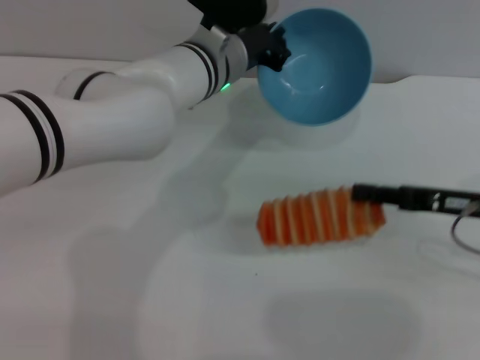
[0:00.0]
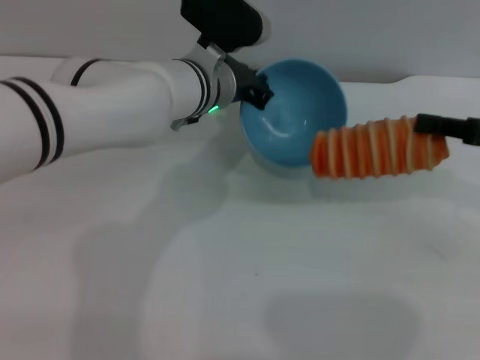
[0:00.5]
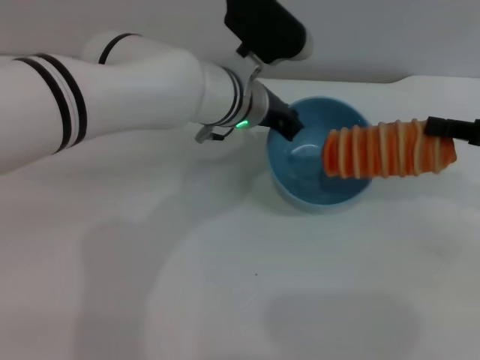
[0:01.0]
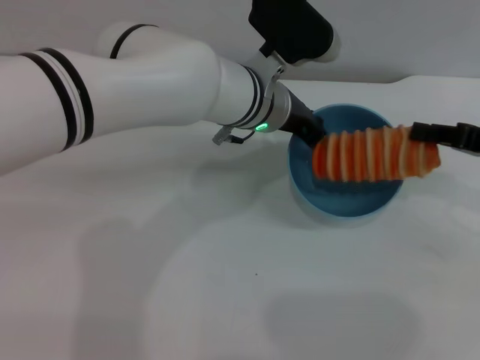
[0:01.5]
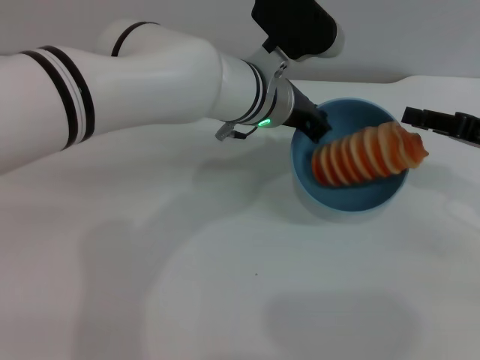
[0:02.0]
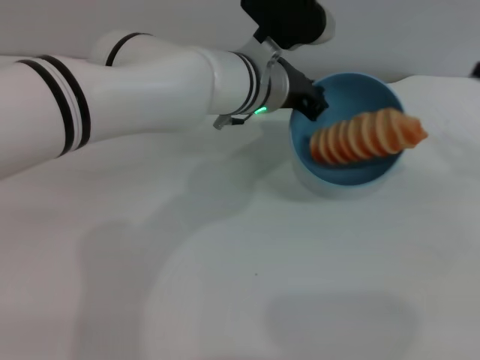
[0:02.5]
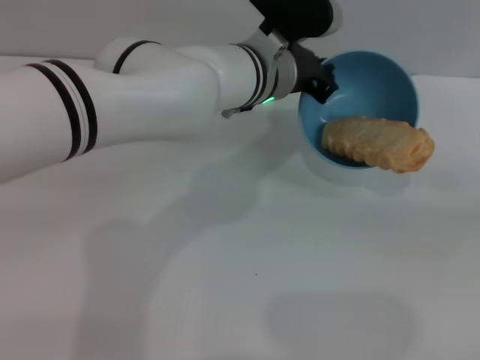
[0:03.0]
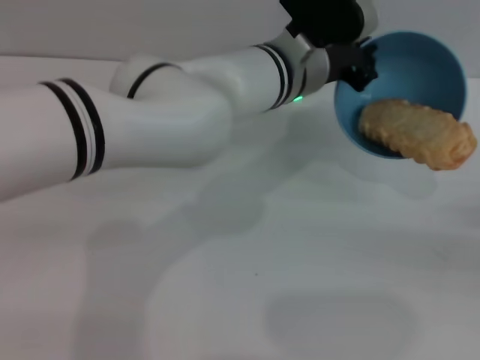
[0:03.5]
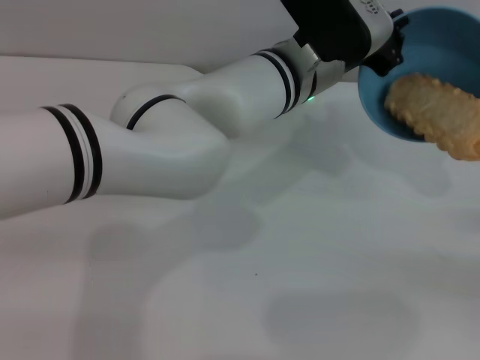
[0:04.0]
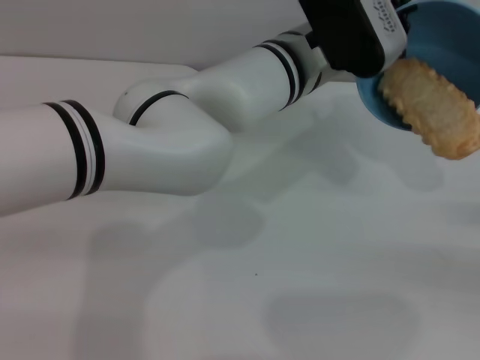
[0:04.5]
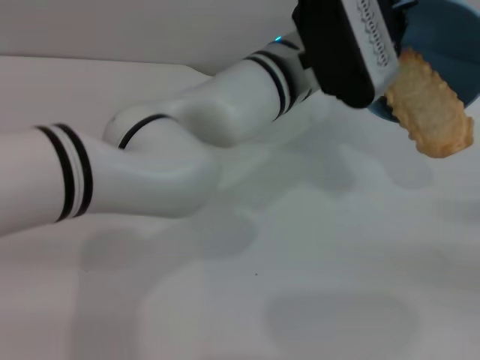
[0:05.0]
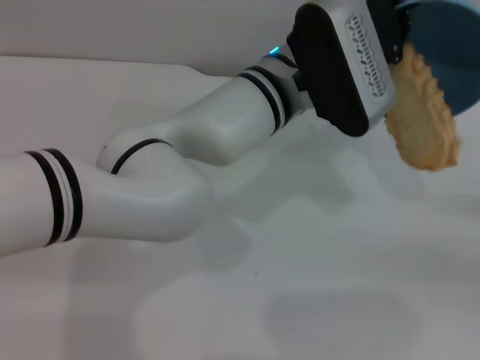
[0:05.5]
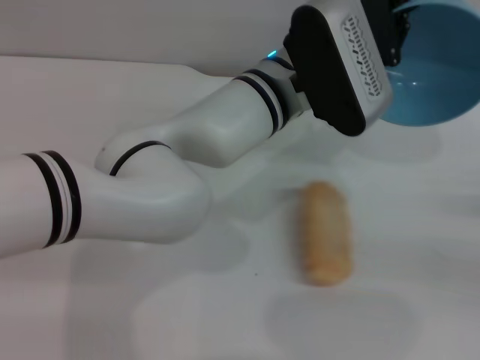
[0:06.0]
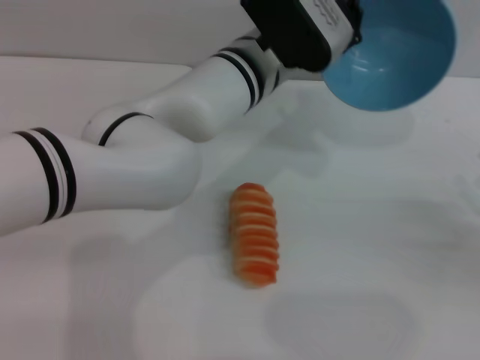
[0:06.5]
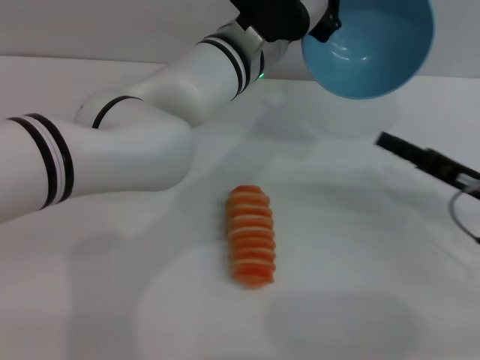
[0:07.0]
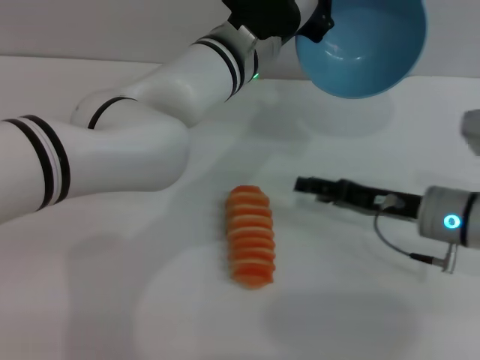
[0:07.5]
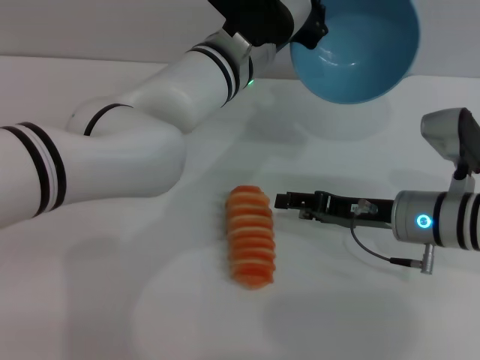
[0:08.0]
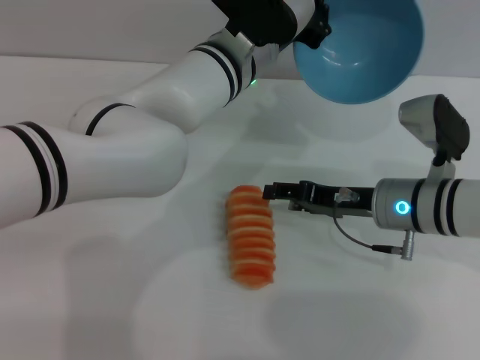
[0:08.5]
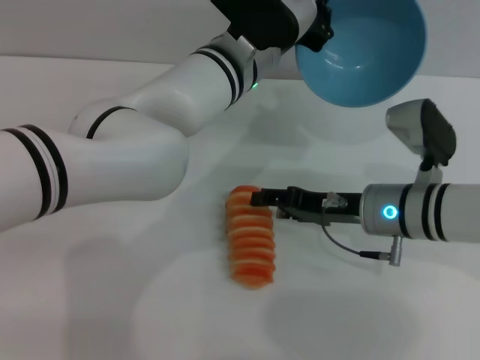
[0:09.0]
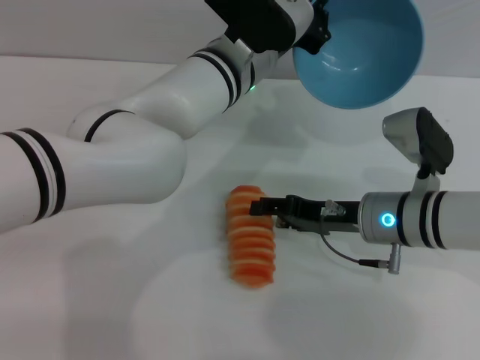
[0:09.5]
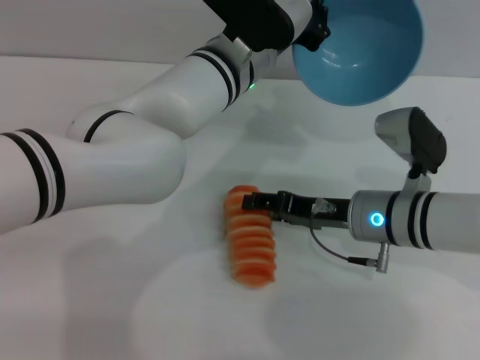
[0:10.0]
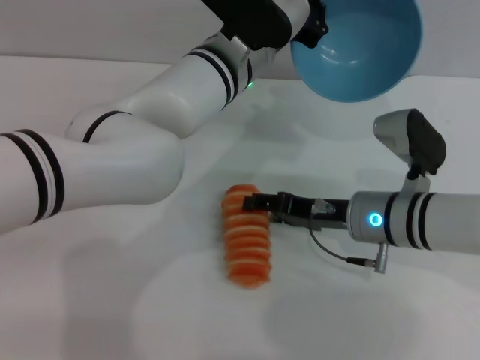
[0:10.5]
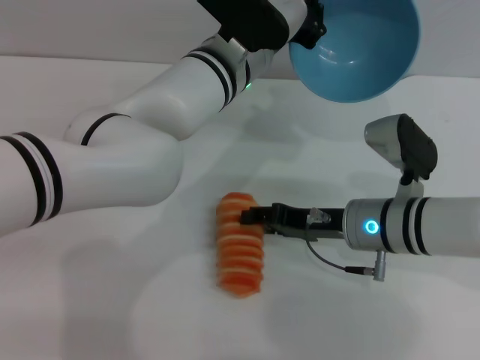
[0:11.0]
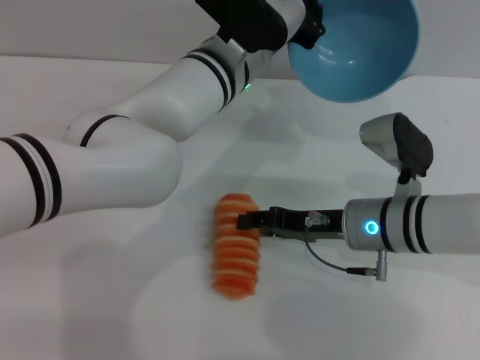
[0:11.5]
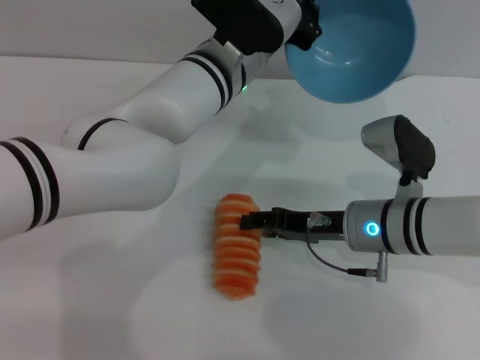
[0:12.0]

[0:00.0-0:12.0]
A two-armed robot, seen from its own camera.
Task of the whole recording: put the bread into the blue bowl and pour it out repeatedly.
Step, 0:00.5 to 0:02.0: Place the bread into the bowl.
Step, 0:02.5 to 0:06.0: Pour the bread out of the bowl.
0:00.0 to 0:02.0: The left gripper moves roughly 5 cm. Meanwhile the right gripper ends up about 5 cm from where it was.
0:02.0 to 0:04.0: The right gripper shifts roughly 15 cm to the right, backward and downward.
0:06.0 to 0:08.0: The left gripper moves roughly 5 cm. The right gripper is displaced to the left by roughly 20 cm, and opens.
0:08.0 to 0:12.0: The grippers stay close to where they were, moving slightly.

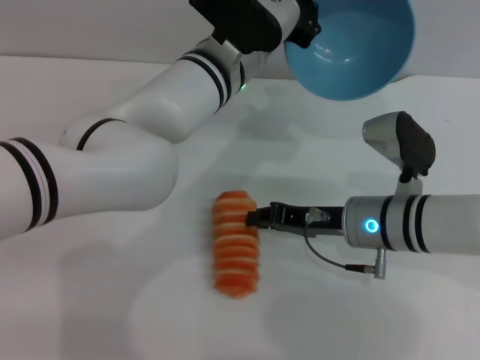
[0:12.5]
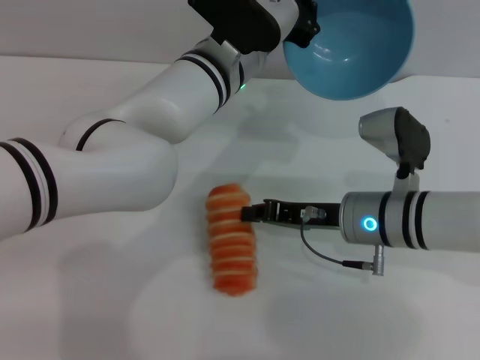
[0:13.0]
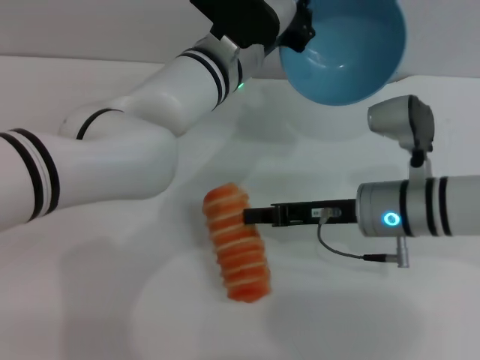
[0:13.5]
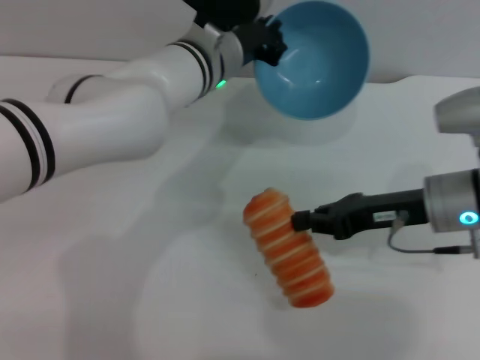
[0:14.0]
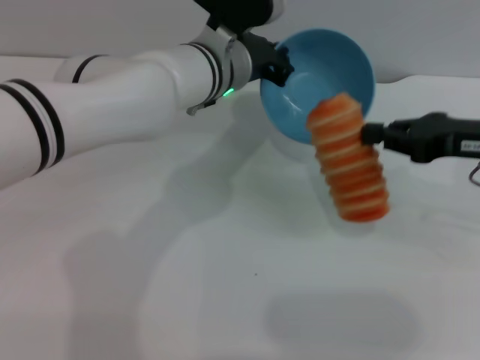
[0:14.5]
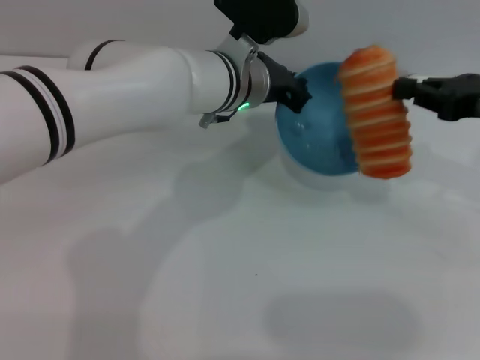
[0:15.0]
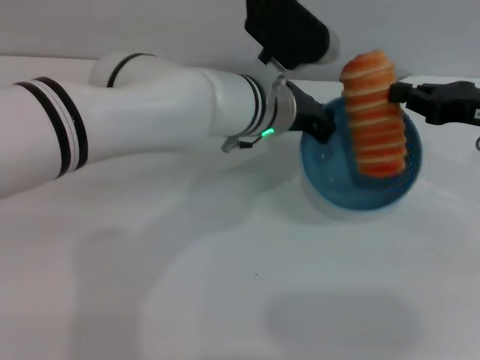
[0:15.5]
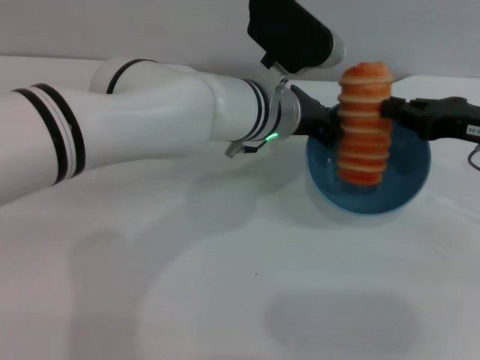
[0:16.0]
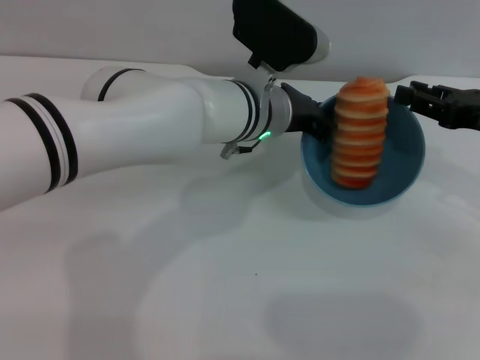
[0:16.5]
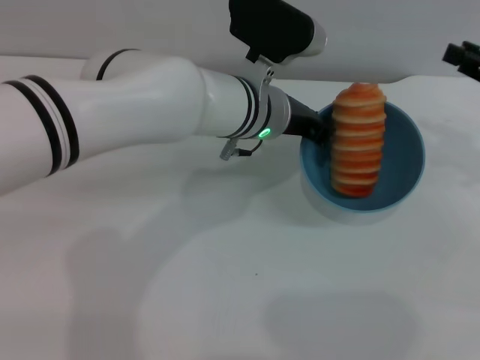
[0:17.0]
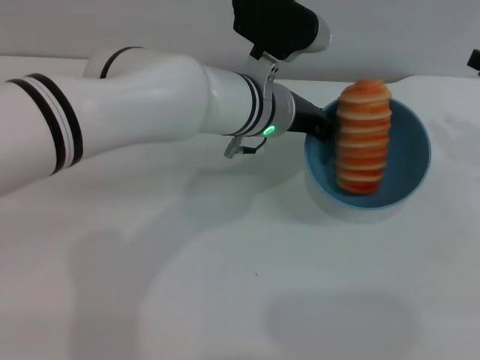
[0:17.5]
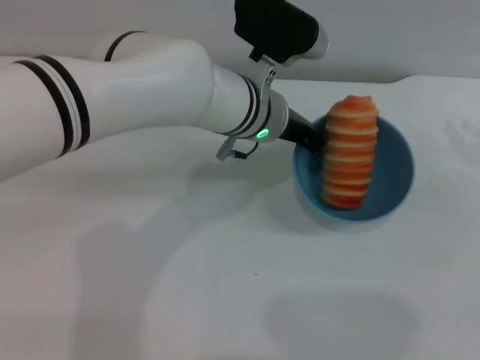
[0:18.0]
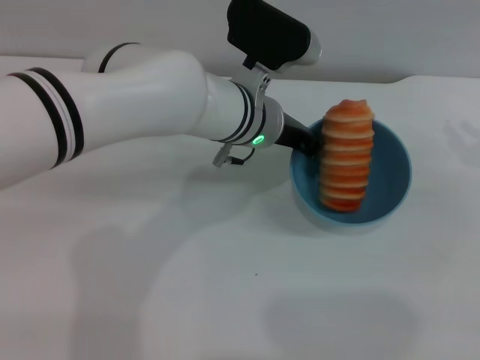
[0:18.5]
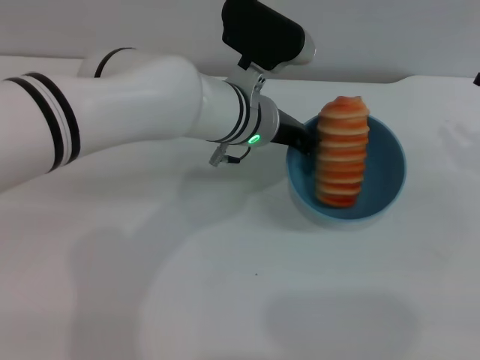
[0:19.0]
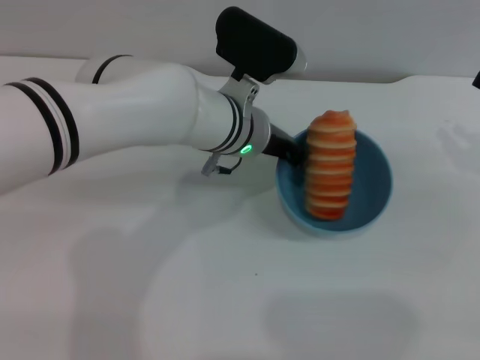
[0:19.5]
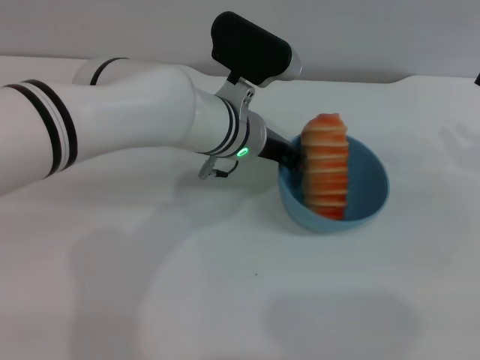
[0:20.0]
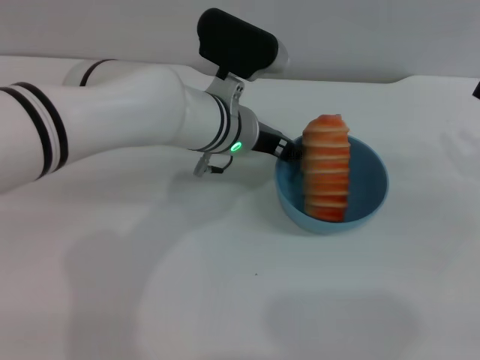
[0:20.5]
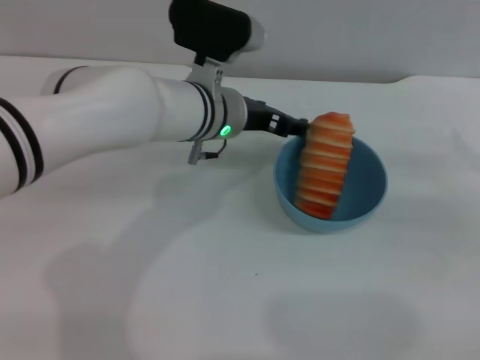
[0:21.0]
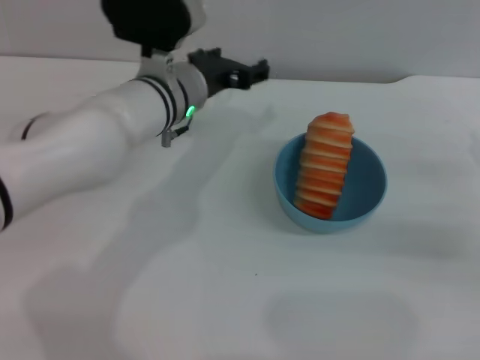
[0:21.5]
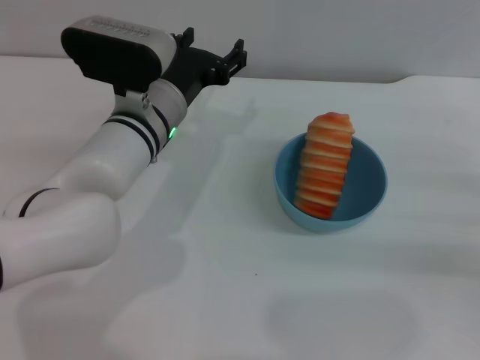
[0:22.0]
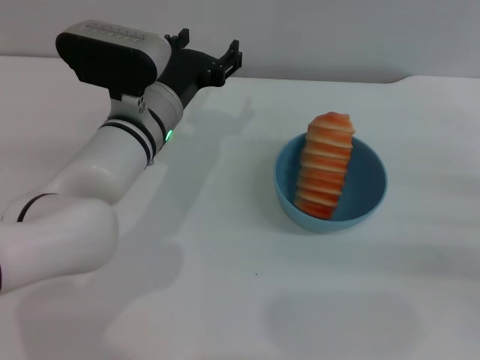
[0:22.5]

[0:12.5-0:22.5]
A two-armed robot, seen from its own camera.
Task of the whole recording: put the bread into the blue bowl and pour it out repeatedly.
Step, 0:14.5 to 0:16.5: Place the bread into the bowl.
Step, 0:17.0 to 0:21.0: Place the bowl on the table.
0:12.5 to 0:14.5: The right gripper shifts roughly 15 cm to the right and upward, and closes.
0:14.5 to 0:16.5: The right gripper opens up. Meanwhile the left gripper moves about 5 cm.
0:16.5 to 0:18.5: The right gripper goes about 5 cm to the right.
0:18.5 to 0:20.5: The grippers stay close to where they were, moving slightly.
0:20.5 to 0:22.5: The left gripper heads to the left, covering approximately 5 cm, and opens. Meanwhile the right gripper travels backward by approximately 5 cm, and opens up.

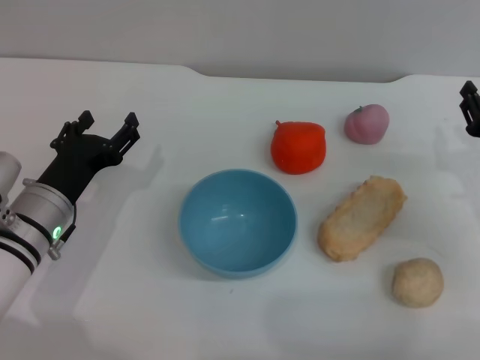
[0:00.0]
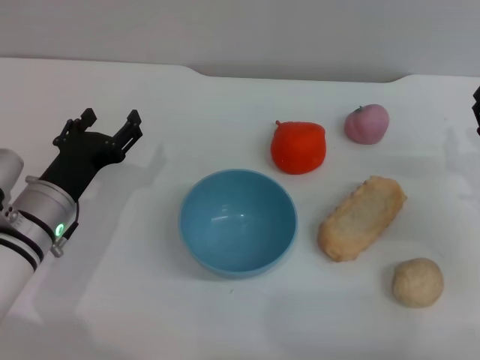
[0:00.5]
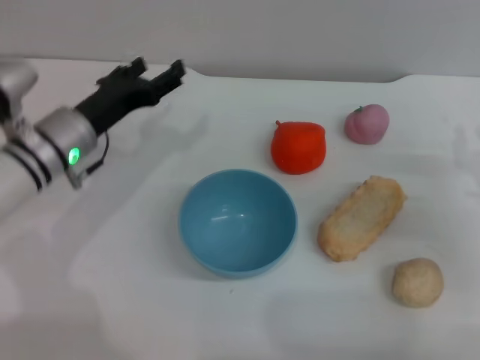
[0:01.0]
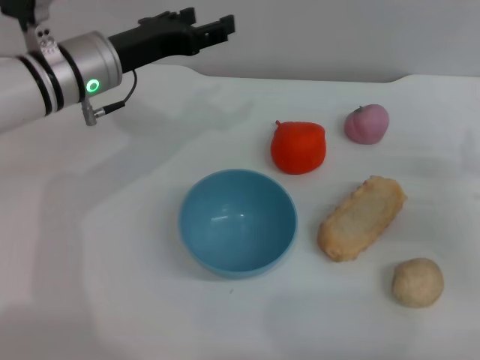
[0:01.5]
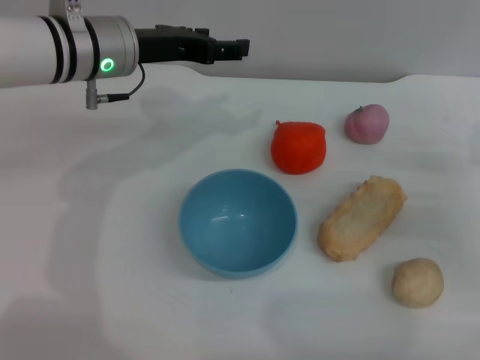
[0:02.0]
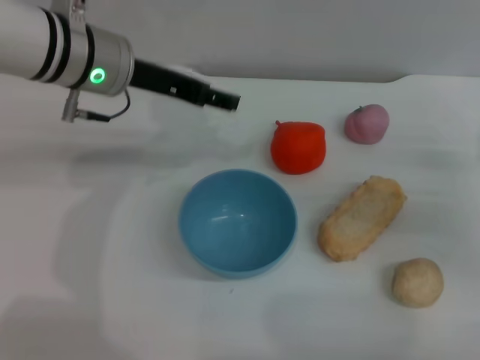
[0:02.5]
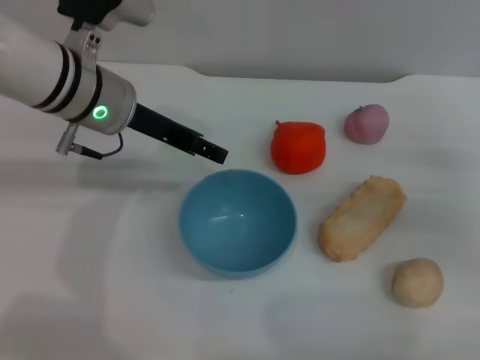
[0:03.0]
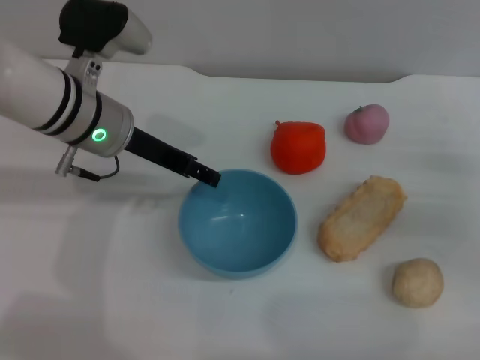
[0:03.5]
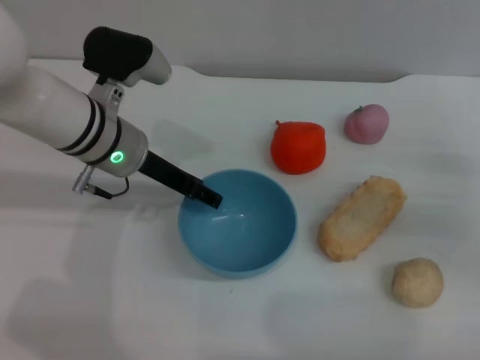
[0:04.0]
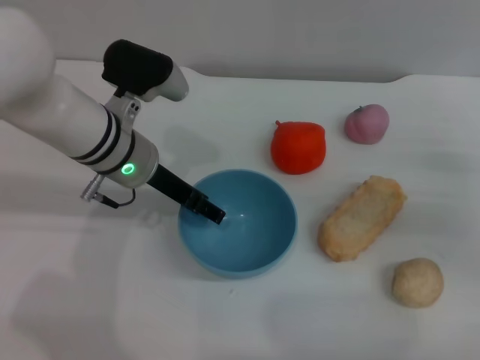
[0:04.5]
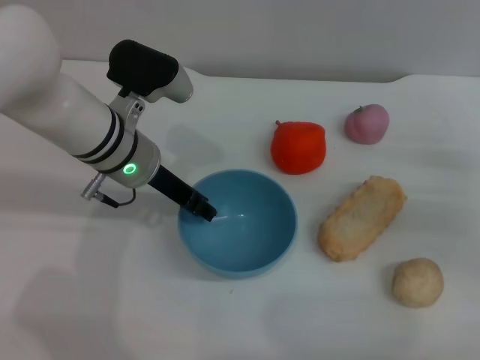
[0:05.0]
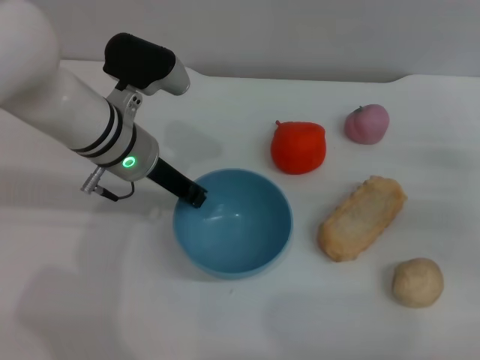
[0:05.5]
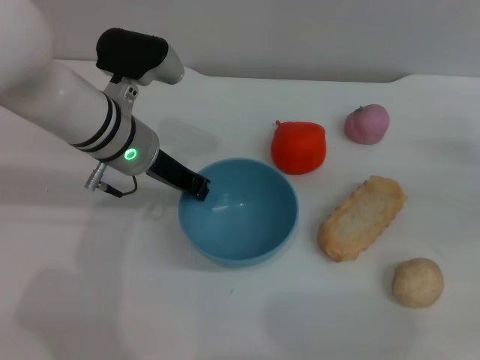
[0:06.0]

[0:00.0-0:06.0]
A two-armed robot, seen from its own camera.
Task of the whole recording: put the bread into the blue bowl and pour it out repeatedly.
0:00.0 to 0:02.0: The left gripper goes approximately 20 cm upward and forward.
0:02.0 to 0:04.0: The left gripper heads downward, covering about 5 cm.
0:04.0 to 0:06.0: The left gripper closes its fingers.
